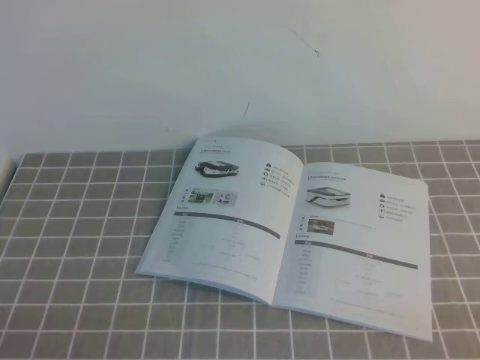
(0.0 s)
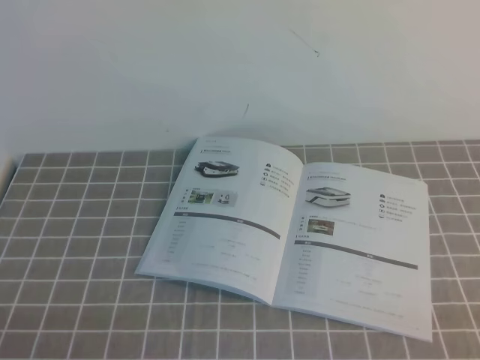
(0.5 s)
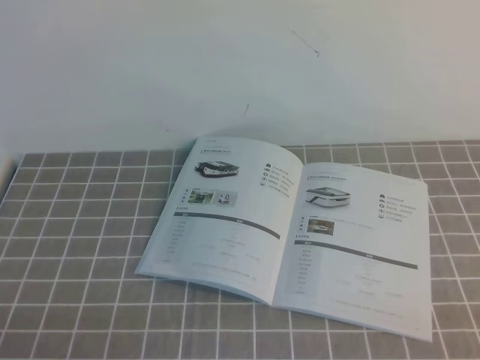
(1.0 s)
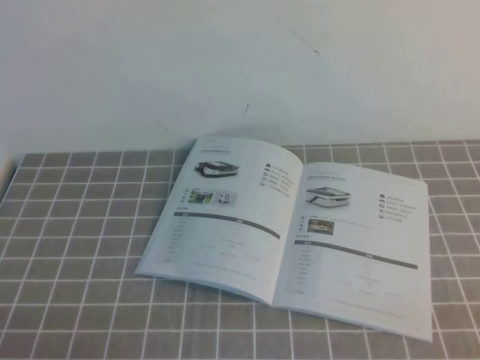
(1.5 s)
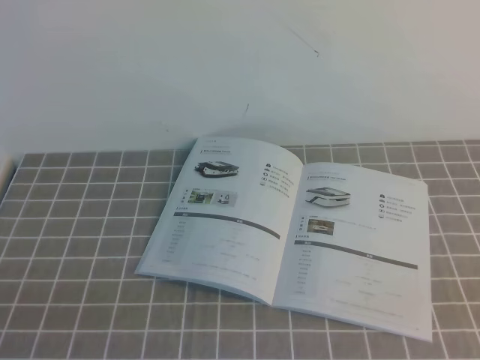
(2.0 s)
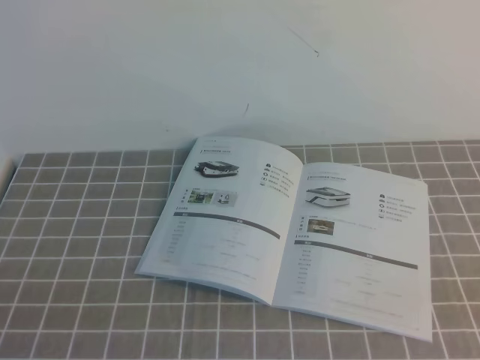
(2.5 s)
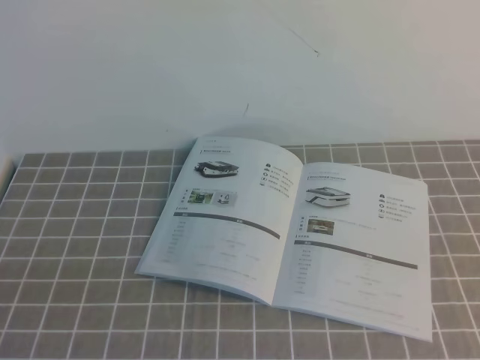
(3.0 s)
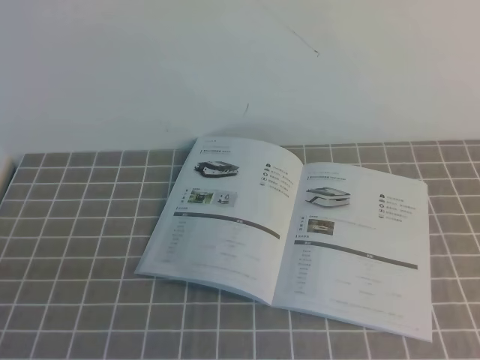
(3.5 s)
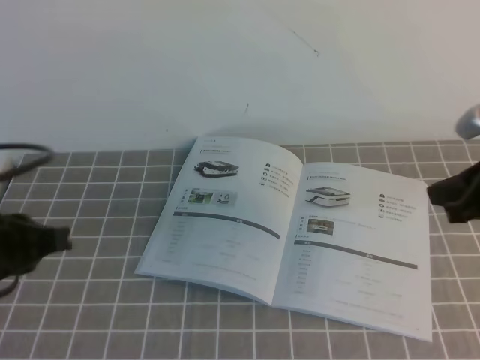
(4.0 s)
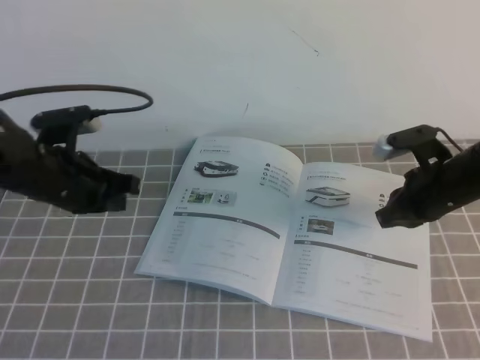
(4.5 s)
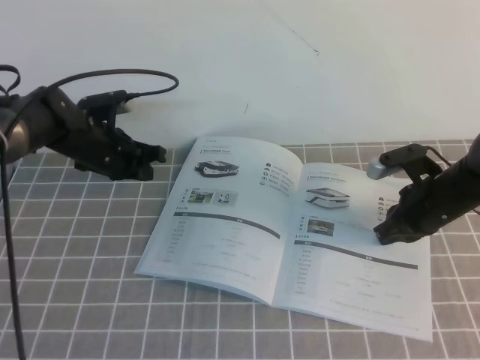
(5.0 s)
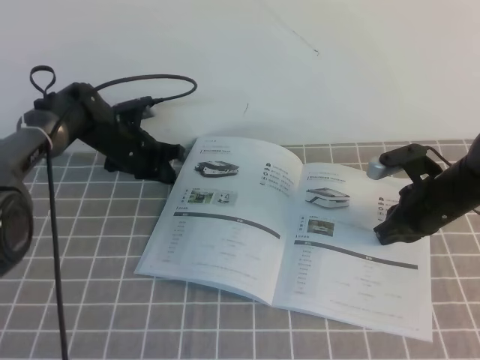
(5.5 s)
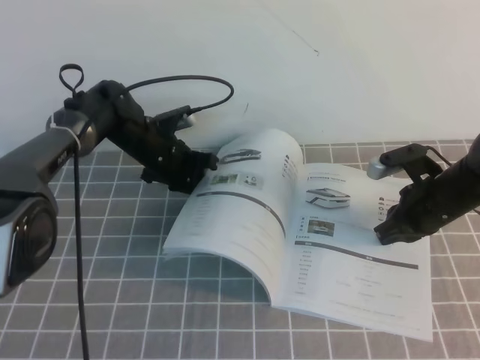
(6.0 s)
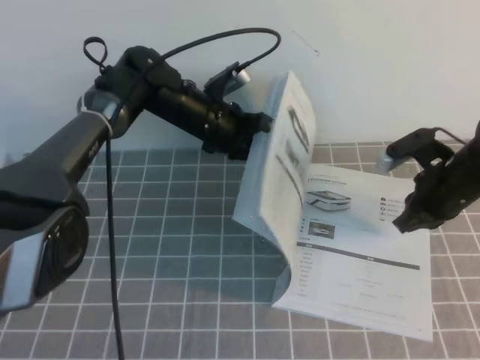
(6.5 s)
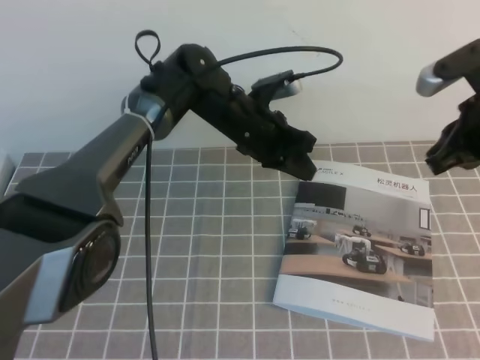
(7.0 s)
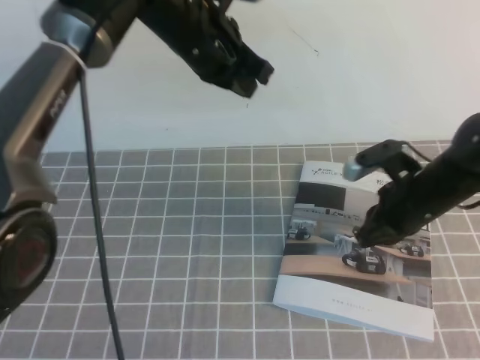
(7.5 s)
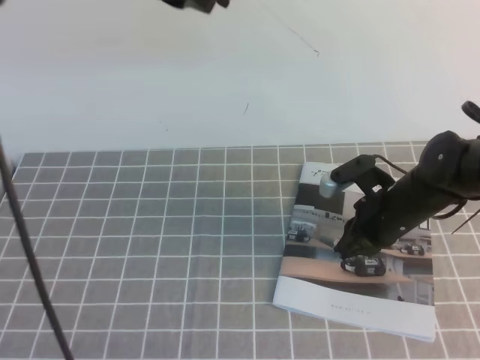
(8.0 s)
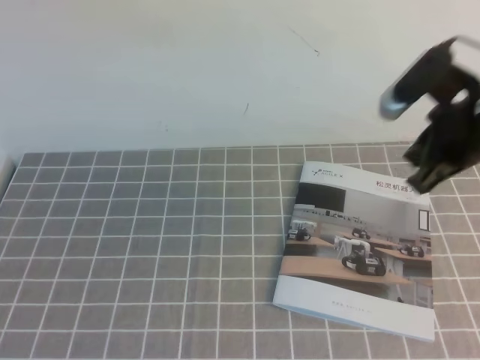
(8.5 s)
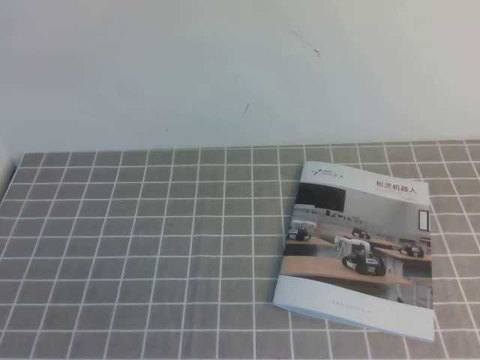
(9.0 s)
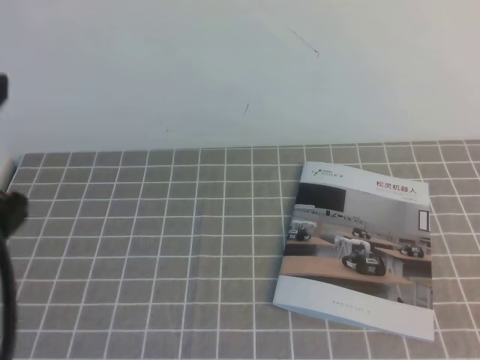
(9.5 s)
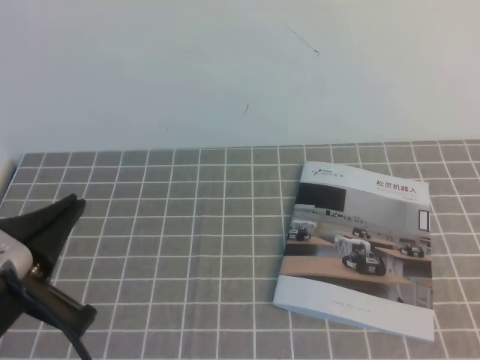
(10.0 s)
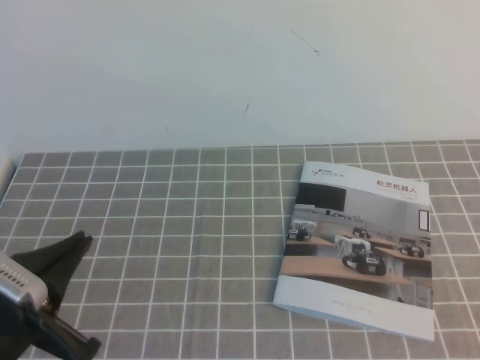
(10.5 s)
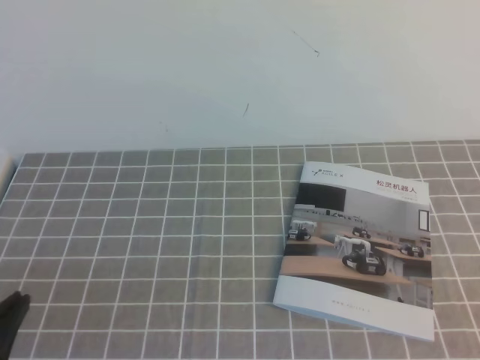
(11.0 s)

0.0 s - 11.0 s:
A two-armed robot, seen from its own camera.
Task of the whole recording: on the grey tablecloth, hold the book with one hand and close it with the other.
3.5 s - 5.5 s: The left gripper is displaced forward by some 40 cm; the right gripper heads forward and downward, covering approximately 35 cm.
5.5 s - 7.5 s: The right gripper goes upward and returns, about 15 cm each way. Meanwhile the left gripper moves upward, to the right and backward, approximately 25 cm.
7.5 s - 9.0 s: The left gripper goes approximately 35 cm backward, upward and to the left. The right gripper heads upward and backward, covering approximately 25 cm.
9.0 s - 11.0 s: The left gripper goes approximately 35 cm downward.
